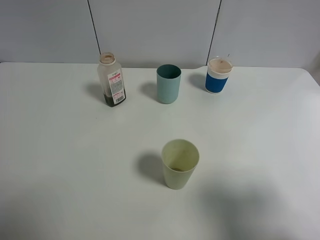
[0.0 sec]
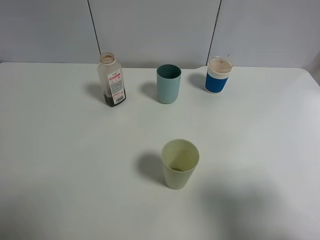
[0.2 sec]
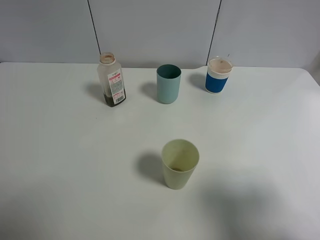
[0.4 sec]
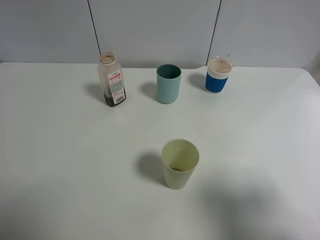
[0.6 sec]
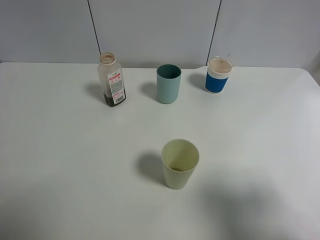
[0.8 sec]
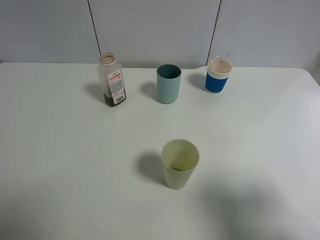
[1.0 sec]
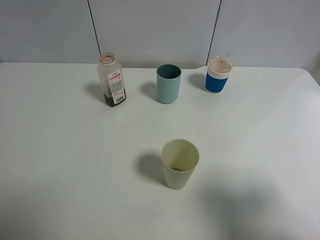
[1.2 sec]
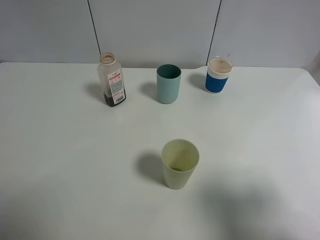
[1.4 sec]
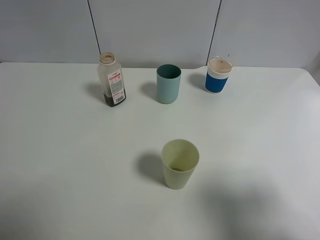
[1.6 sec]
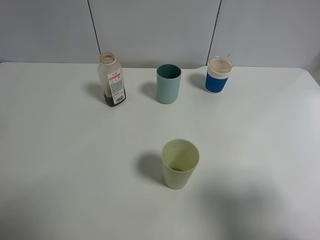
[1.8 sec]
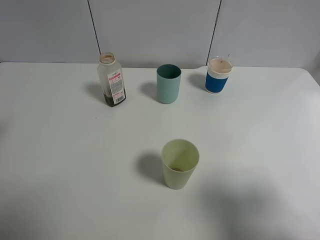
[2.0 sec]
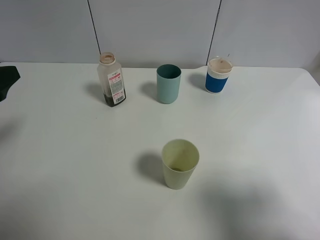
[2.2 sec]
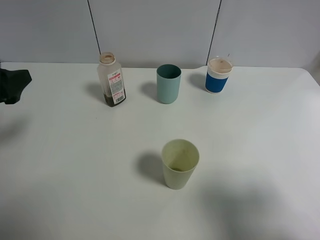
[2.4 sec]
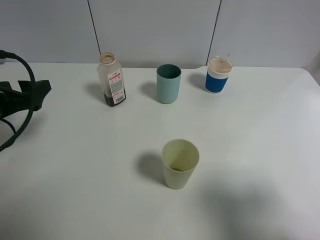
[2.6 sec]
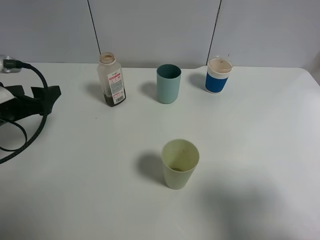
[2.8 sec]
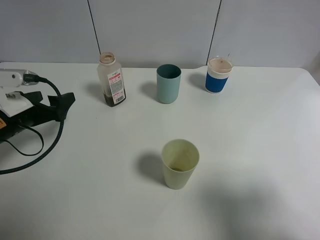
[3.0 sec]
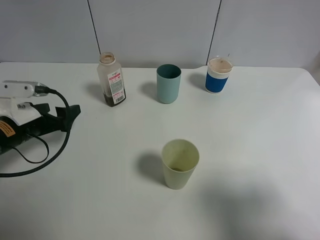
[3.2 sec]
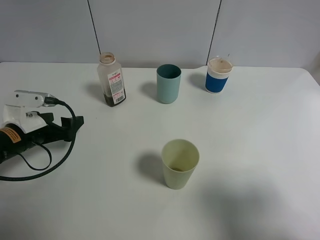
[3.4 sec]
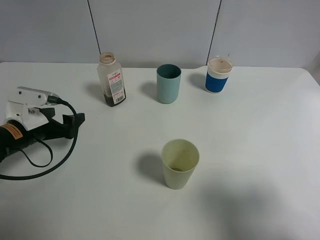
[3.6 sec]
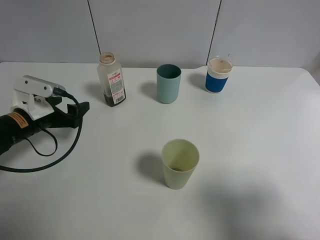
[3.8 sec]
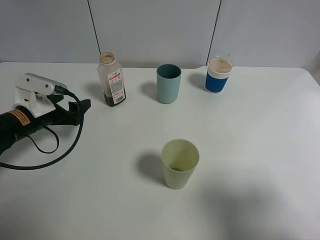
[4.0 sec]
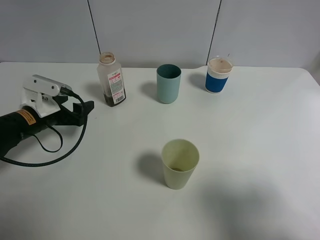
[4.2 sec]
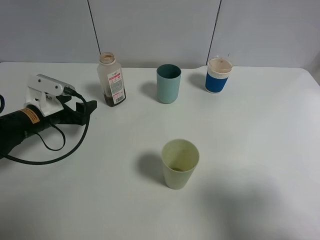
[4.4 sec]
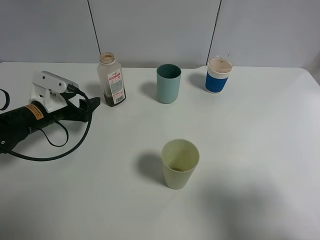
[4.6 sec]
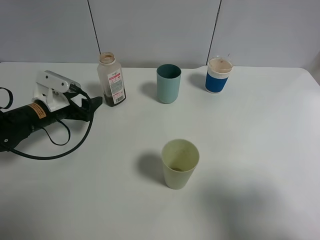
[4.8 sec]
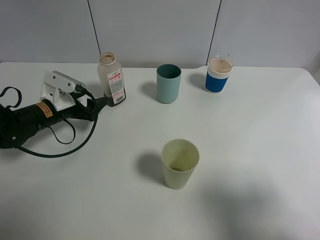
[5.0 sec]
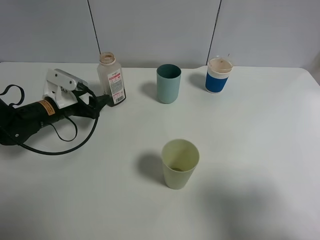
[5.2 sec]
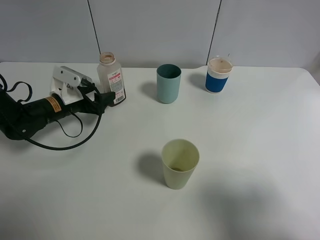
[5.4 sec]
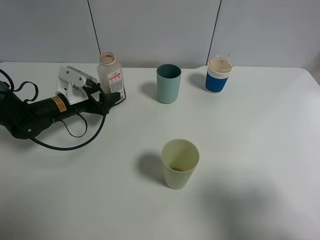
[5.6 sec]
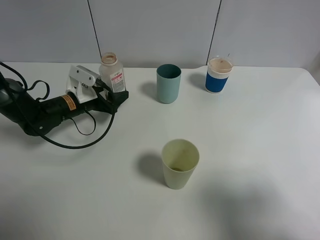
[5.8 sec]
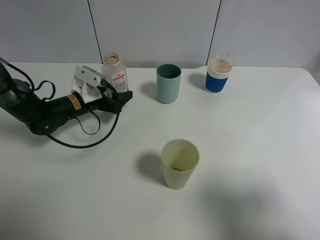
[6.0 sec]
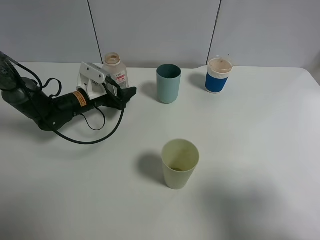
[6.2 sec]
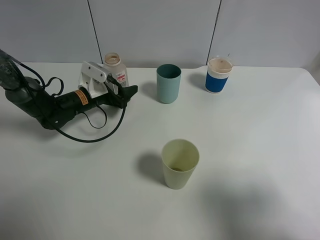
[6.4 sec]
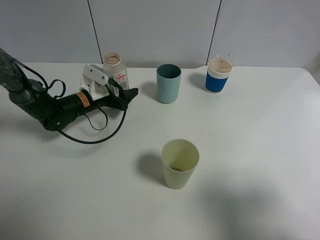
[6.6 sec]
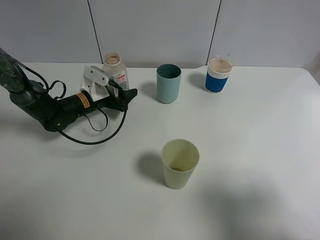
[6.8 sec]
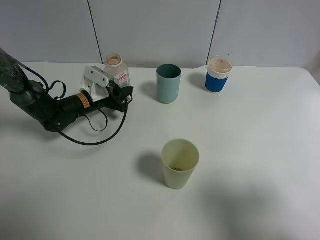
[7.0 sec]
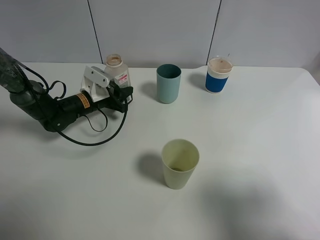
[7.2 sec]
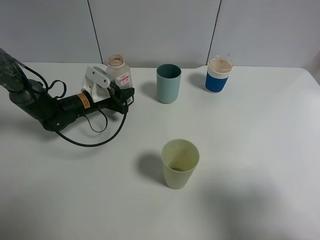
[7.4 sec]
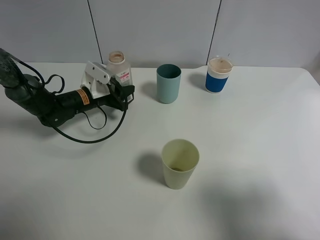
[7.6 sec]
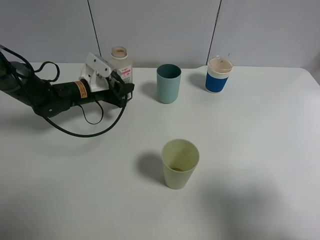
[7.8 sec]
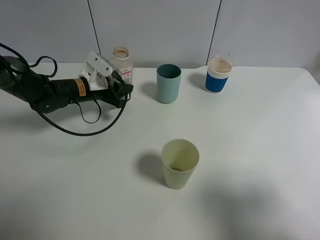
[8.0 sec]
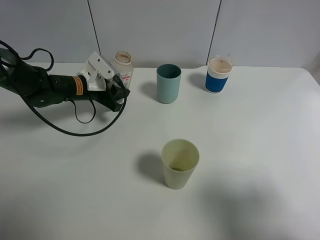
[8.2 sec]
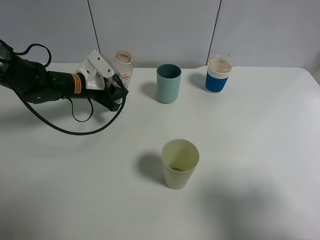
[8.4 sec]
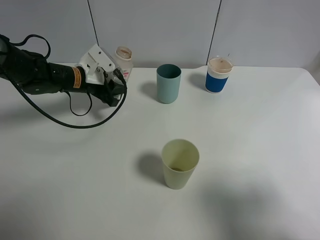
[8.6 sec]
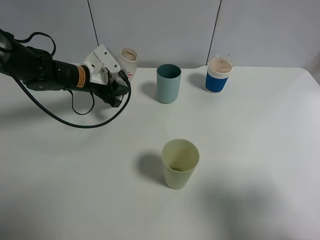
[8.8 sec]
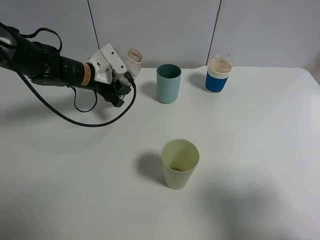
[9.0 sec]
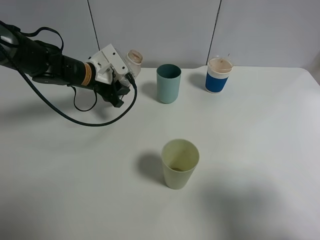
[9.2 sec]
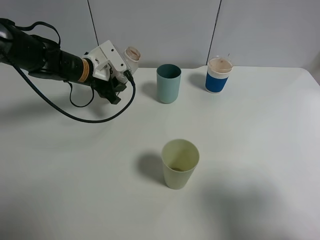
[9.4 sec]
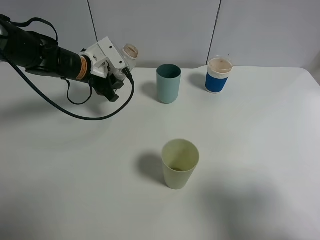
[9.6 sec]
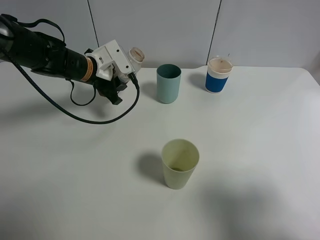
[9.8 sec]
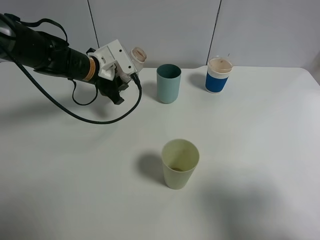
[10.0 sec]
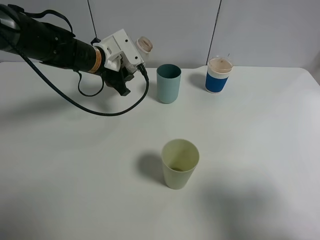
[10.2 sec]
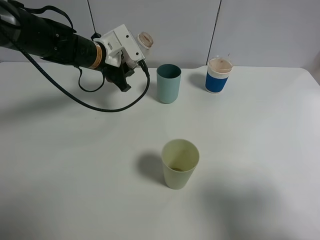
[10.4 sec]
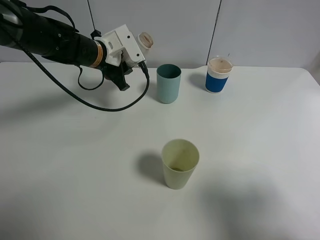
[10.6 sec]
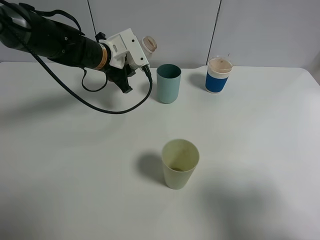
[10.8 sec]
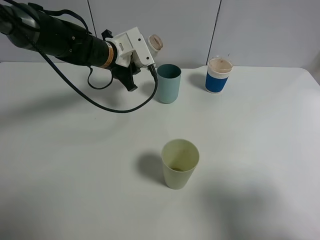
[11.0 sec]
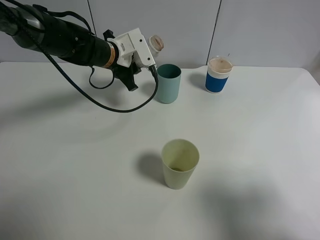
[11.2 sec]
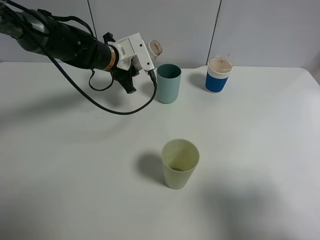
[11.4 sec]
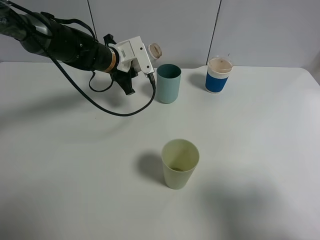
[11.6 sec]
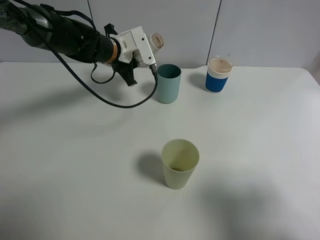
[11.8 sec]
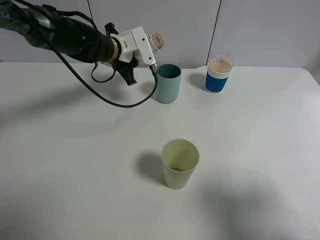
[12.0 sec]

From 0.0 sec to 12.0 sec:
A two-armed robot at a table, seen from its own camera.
Task of the whole recording: use a gripper to hold the bottle of the drink and pour it into a random cup.
Step, from 0.0 sec to 7.0 sec: Grasp the cranberry juice bottle with the left gripper.
From 1.6 sec to 3.0 sec: The left gripper goes some 25 cm downward and forward.
From 3.0 sec to 4.4 sec: The left gripper travels forward by approximately 5 cm.
From 4.4 sec to 6.0 sec: The left gripper shifts about 10 cm forward and to the right.
From 6.0 sec to 7.6 sec: The left gripper closes up.
From 7.6 sec to 9.0 sec: The left gripper goes some 5 cm upward.
From 9.0 sec to 10.4 sec: The left gripper shifts by about 5 cm.
From 10.4 sec to 12.0 sec: The grippers make only small movements.

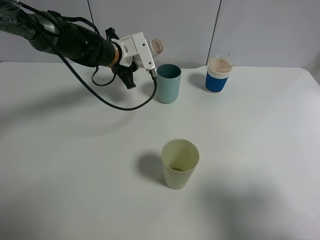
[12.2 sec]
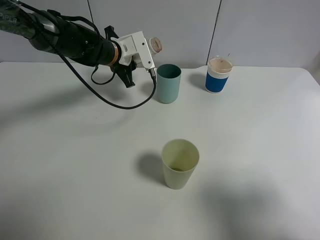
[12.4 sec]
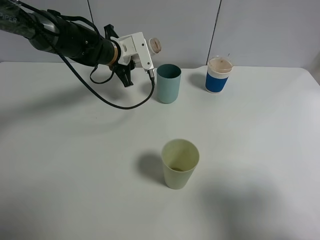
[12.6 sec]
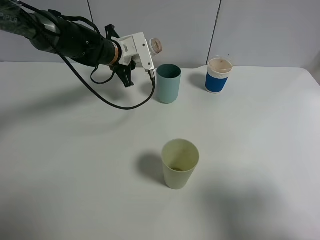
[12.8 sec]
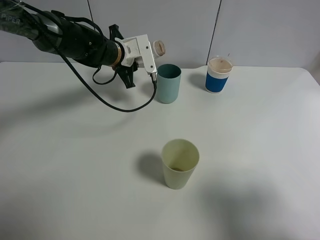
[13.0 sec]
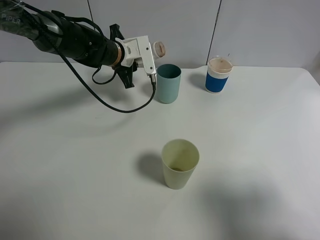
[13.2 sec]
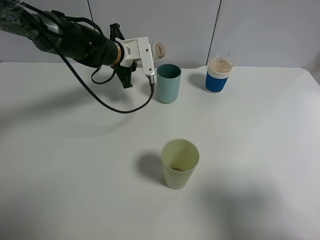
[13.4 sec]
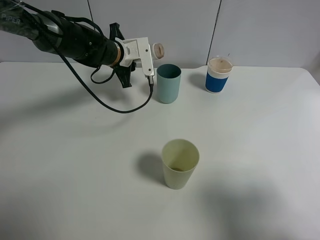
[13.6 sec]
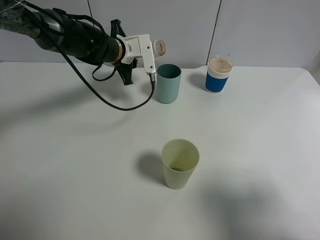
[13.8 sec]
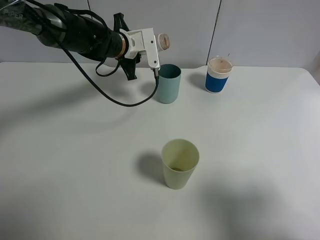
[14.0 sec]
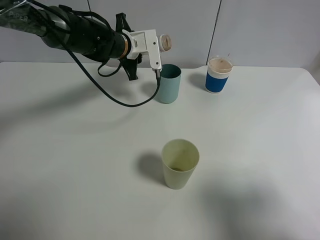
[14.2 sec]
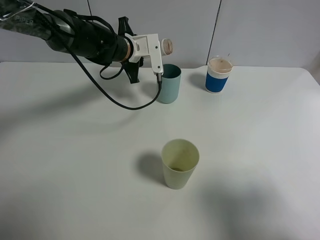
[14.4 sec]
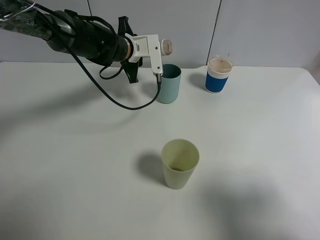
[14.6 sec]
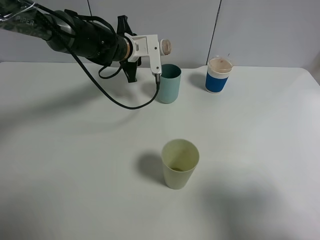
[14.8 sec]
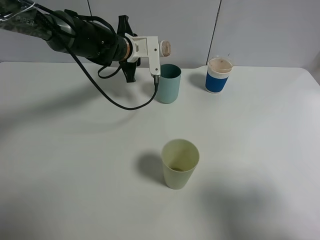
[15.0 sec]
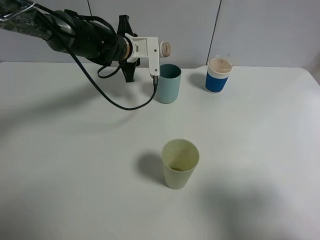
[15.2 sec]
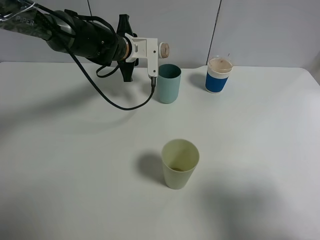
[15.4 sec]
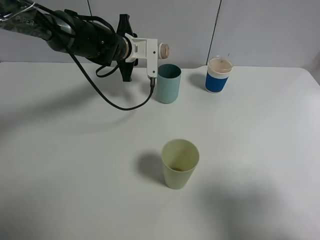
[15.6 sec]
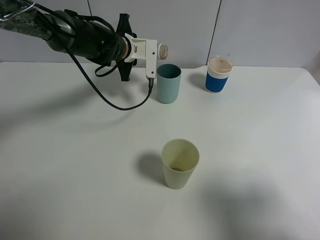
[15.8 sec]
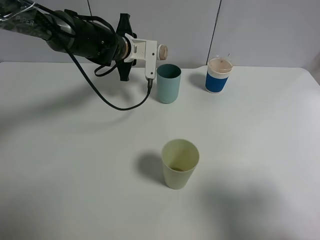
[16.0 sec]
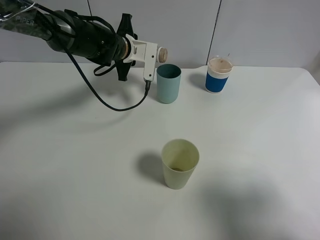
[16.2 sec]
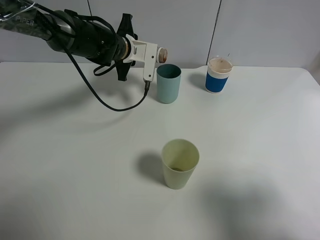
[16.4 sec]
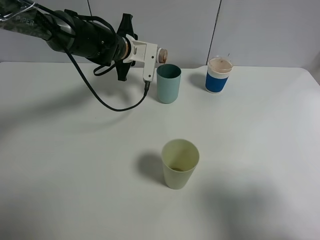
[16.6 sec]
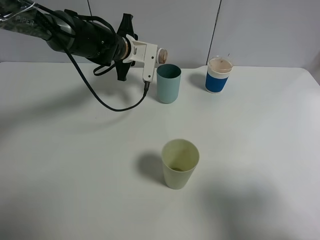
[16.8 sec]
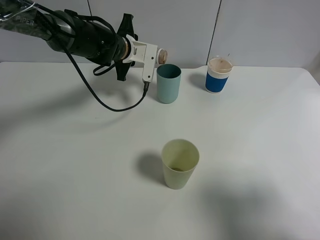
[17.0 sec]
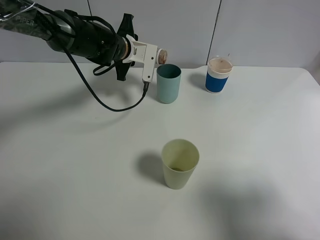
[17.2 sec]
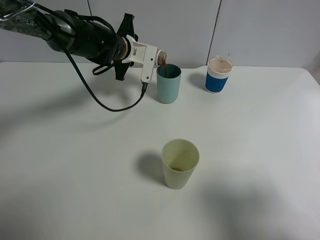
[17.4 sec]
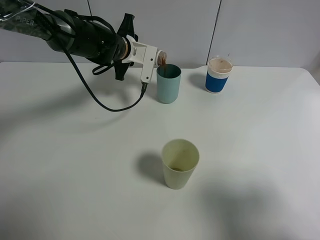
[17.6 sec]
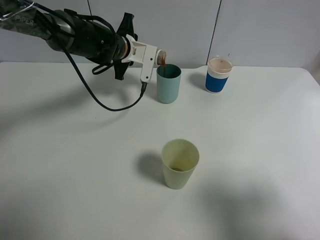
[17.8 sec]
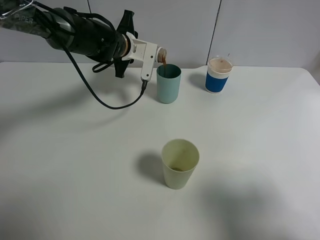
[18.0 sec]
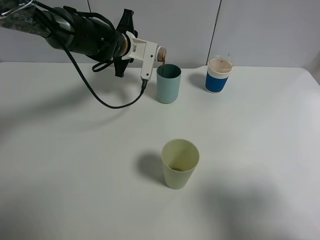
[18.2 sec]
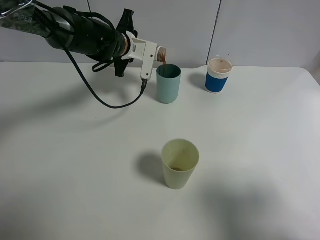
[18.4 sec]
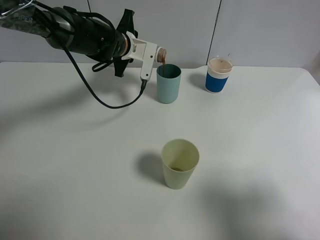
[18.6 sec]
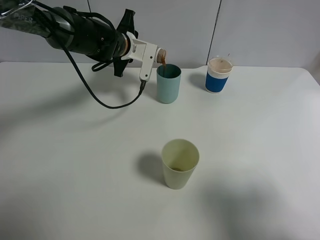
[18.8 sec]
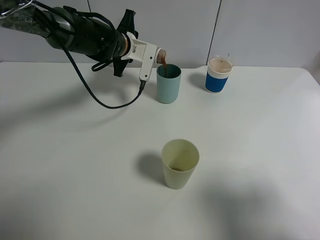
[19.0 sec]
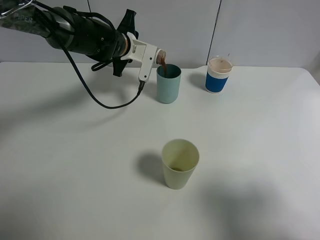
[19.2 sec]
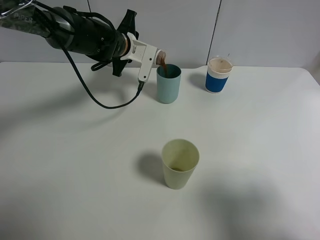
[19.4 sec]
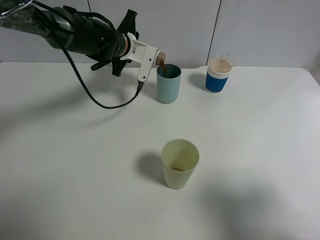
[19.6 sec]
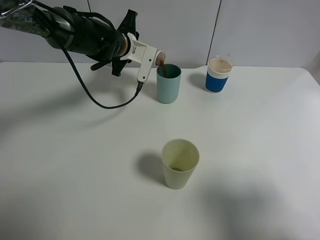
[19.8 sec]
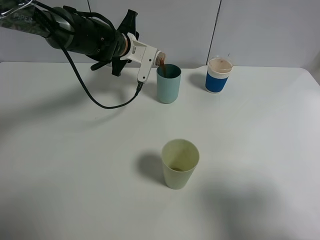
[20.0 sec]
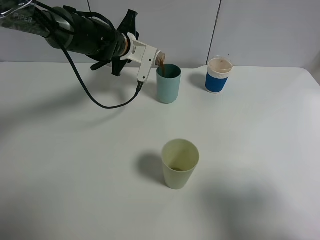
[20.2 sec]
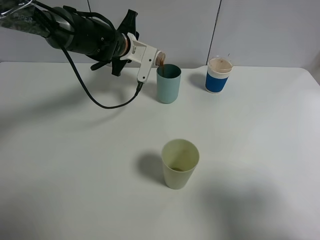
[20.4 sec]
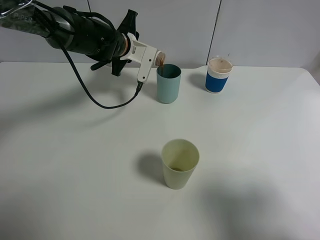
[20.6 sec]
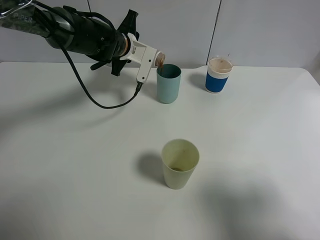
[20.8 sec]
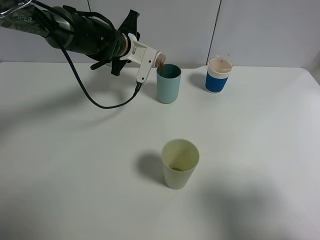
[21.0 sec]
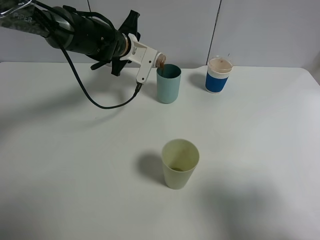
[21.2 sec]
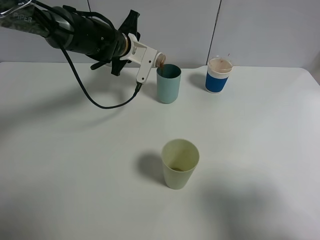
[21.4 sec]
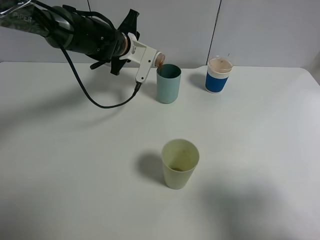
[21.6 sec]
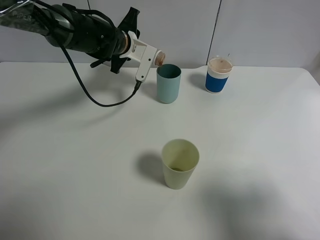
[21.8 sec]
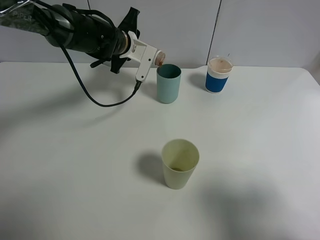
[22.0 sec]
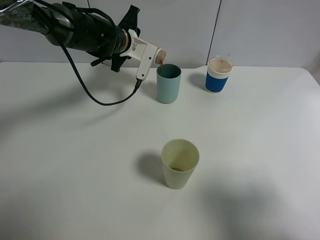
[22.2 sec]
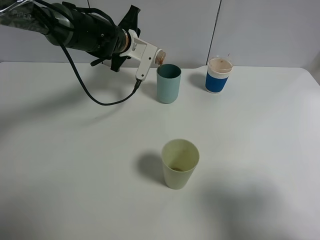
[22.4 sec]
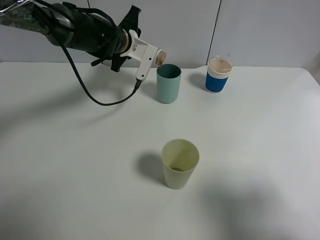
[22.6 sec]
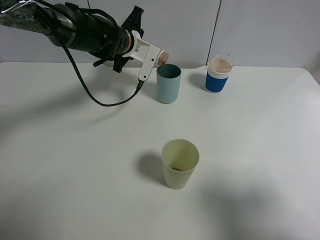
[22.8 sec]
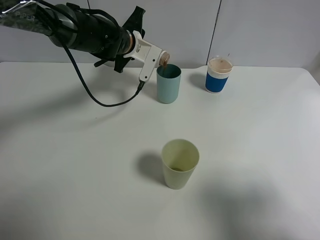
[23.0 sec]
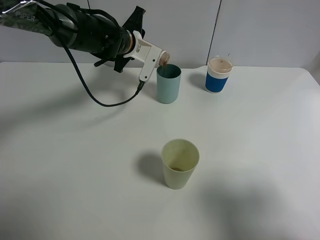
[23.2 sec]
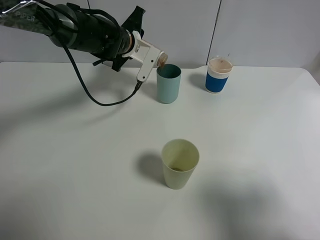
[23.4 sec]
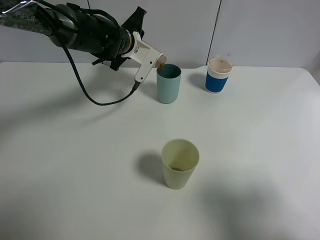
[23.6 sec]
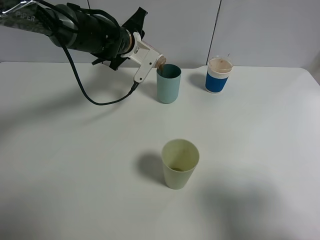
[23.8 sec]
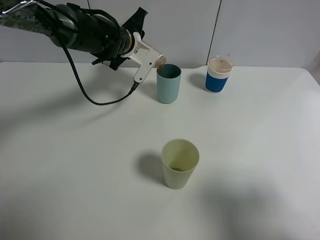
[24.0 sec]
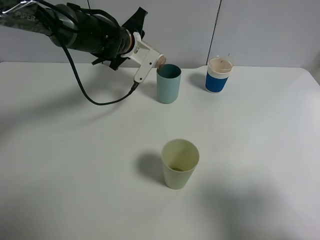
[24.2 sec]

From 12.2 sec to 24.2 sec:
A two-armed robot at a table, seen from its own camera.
Task of the whole recording: use a gripper to hold the bottle of the drink and pour it into a random cup.
From 12.2 sec to 13.8 sec: The grippers make only small movements.
From 13.8 sec to 15.2 sec: There are only small adjustments of the grippers.
From 15.2 sec to 16.6 sec: The grippers stay close to where they were, moving slightly.
From 16.6 sec to 18.2 sec: Neither gripper changes place.
From 18.2 sec to 19.8 sec: The grippers stay close to where they were, moving slightly.
From 19.8 sec to 21.2 sec: Both grippers stay about where they are.
From 21.2 sec to 22.6 sec: The two grippers keep their place.
From 22.6 sec to 24.2 sec: The grippers stay close to where they were, moving slightly.
